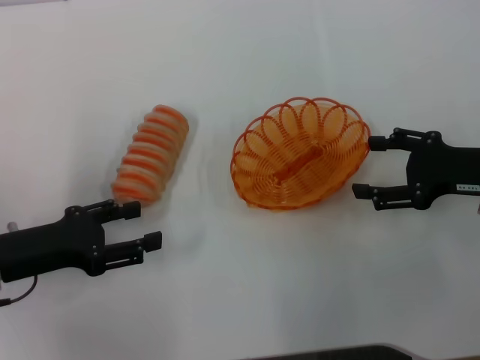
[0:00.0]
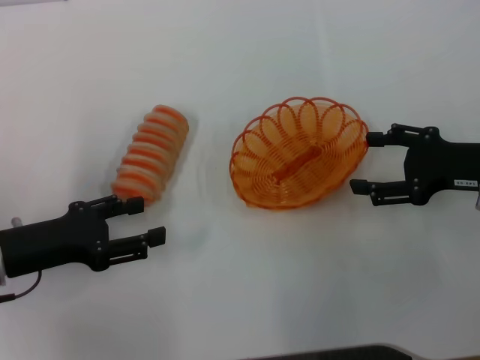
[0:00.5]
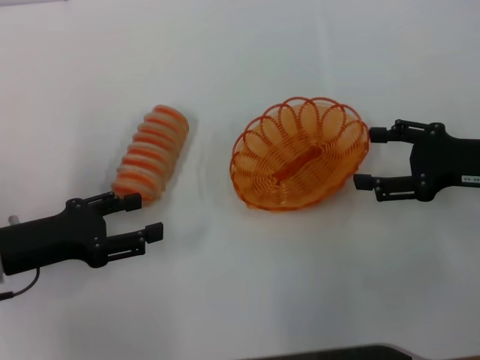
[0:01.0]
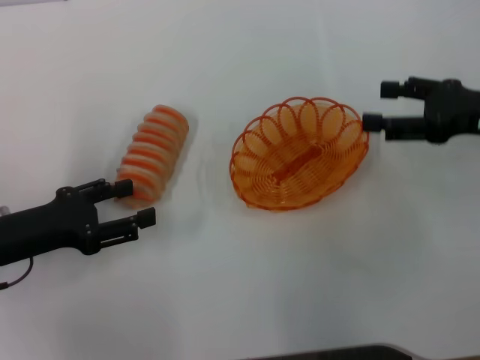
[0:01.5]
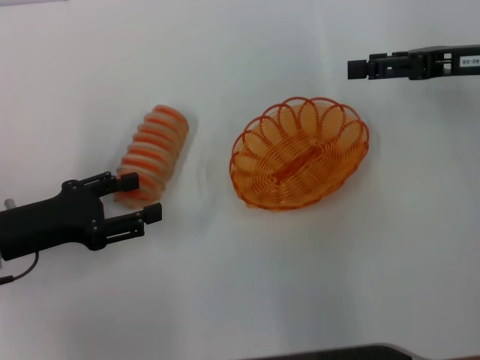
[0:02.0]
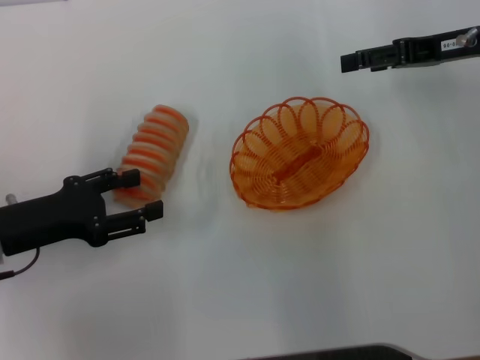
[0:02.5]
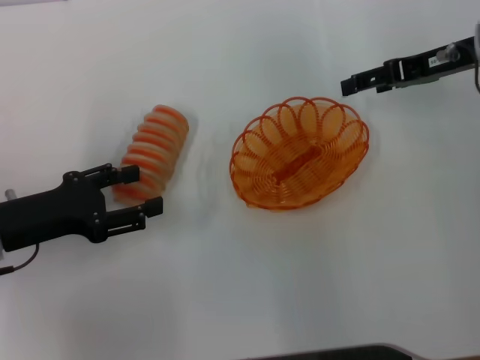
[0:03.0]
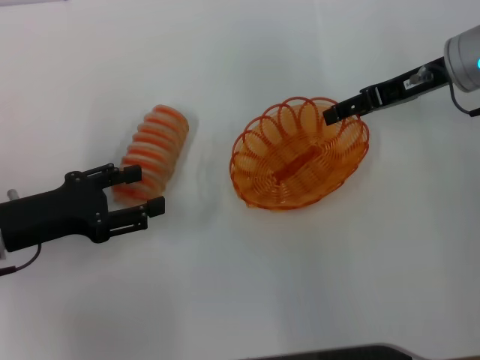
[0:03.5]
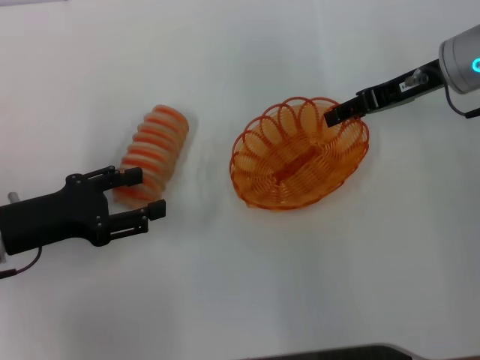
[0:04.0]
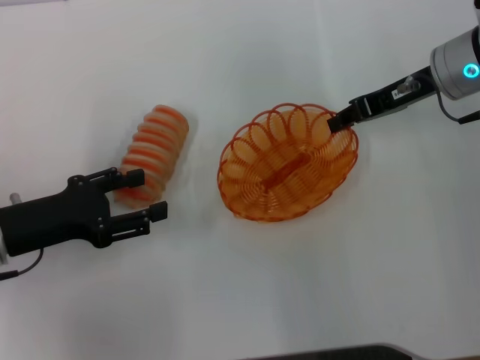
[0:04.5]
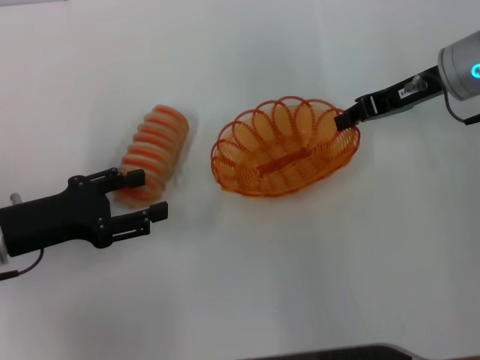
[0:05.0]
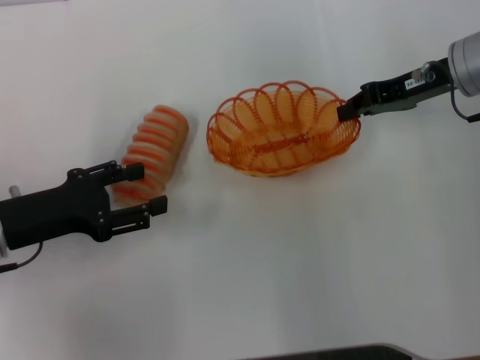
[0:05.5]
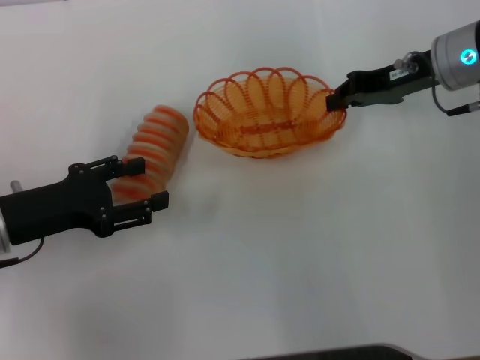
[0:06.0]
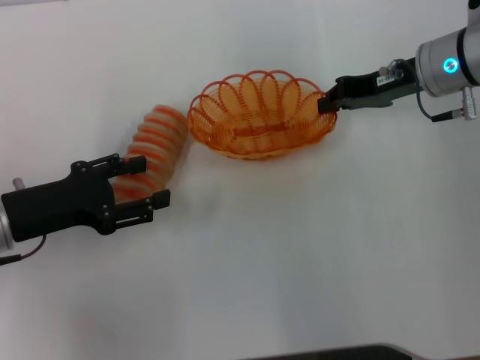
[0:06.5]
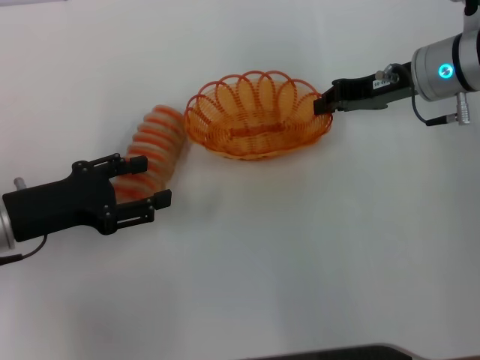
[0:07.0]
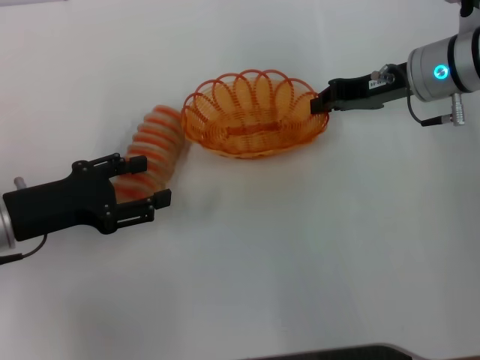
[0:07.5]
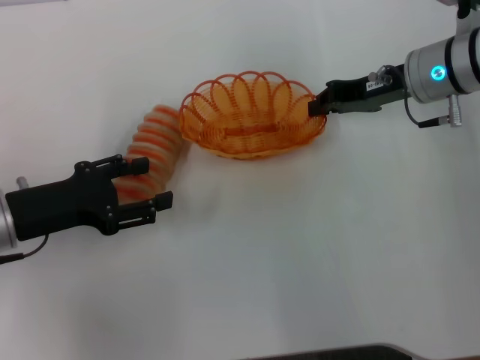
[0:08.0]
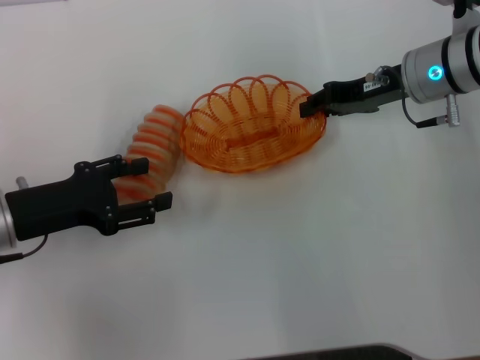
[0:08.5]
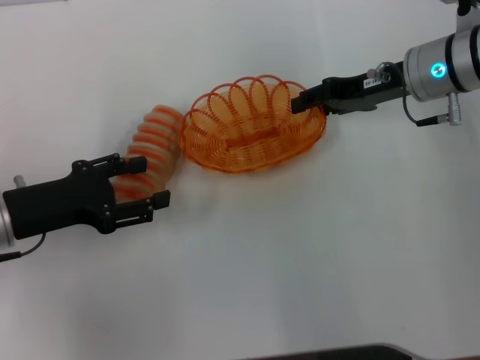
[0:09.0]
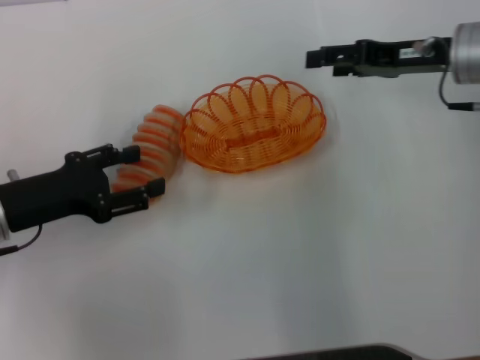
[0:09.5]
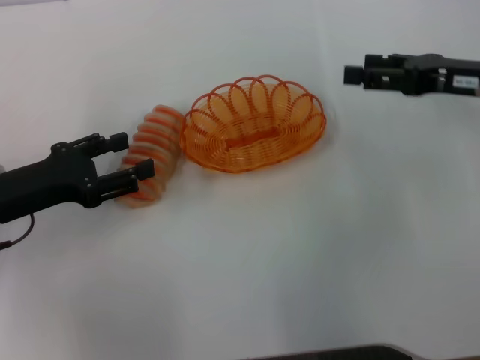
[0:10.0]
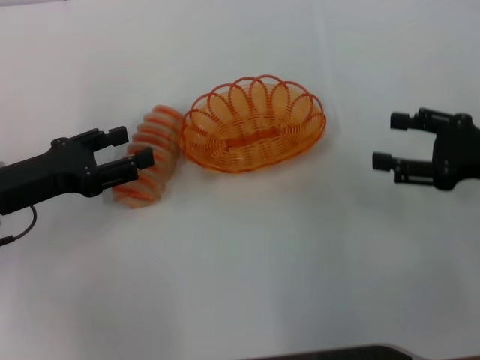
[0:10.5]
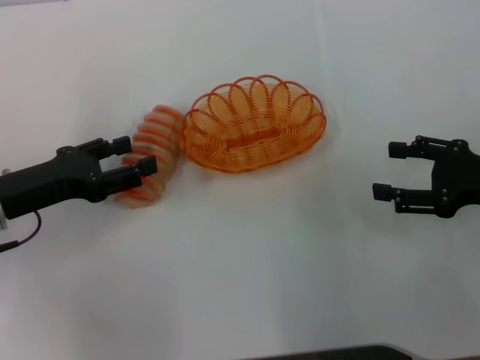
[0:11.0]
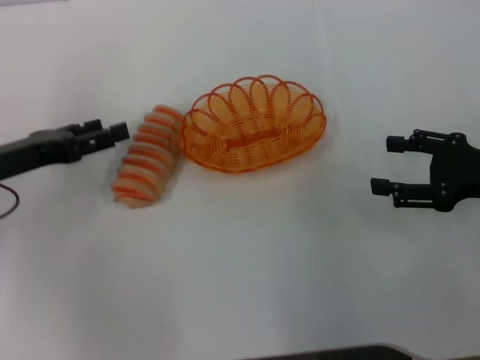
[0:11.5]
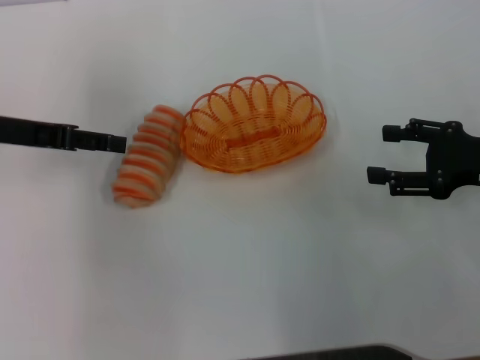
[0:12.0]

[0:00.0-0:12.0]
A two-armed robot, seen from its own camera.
Step, 0:00.0 to 0:05.0: Pick up the basket with the right gripper.
Step, 0:06.0 to 0:09.0: Place the basket in the center of view with the right gripper.
0:00.0 to 0:02.0: The right gripper moves forward and upward, some 10 cm.
0:02.0 to 0:04.0: The right gripper is displaced to the left by about 5 cm.
0:04.0 to 0:06.0: The right gripper closes its fingers.
0:06.0 to 0:08.0: The grippers move only a little.
0:08.0 to 0:10.0: The right gripper travels to the right and backward by approximately 10 cm, and opens its fingers.
0:10.0 to 0:12.0: The left gripper is displaced forward and upward by some 10 cm. Meanwhile the right gripper travels backward by about 5 cm.

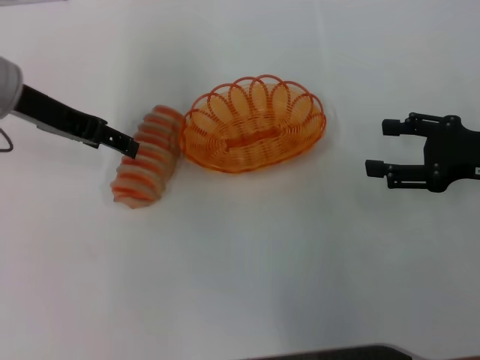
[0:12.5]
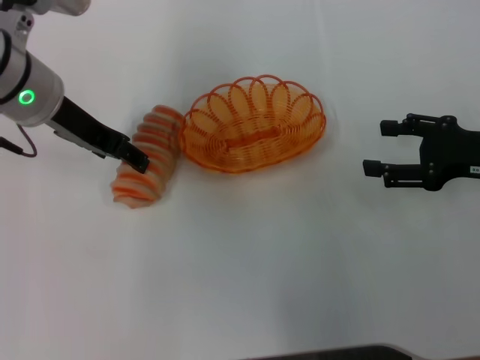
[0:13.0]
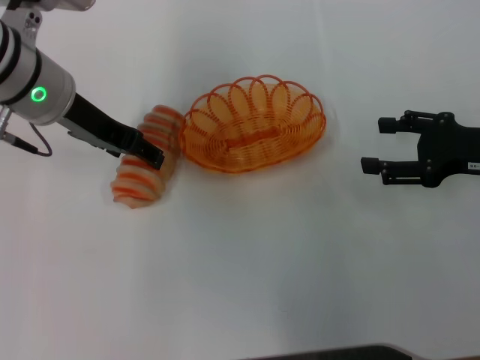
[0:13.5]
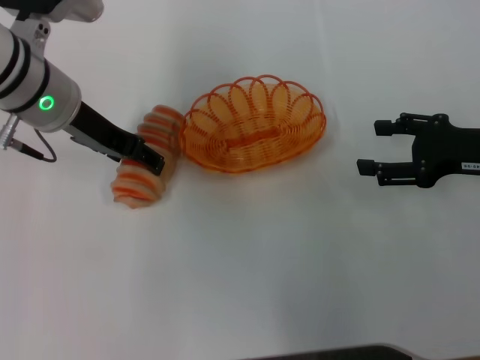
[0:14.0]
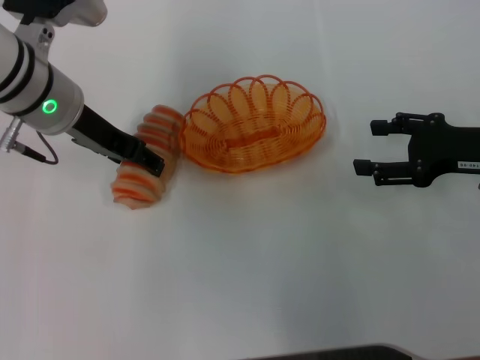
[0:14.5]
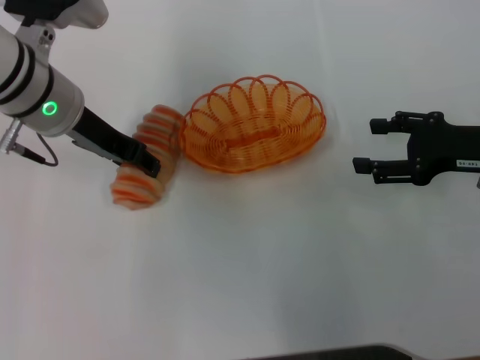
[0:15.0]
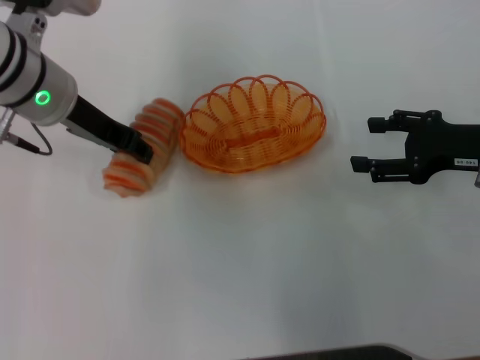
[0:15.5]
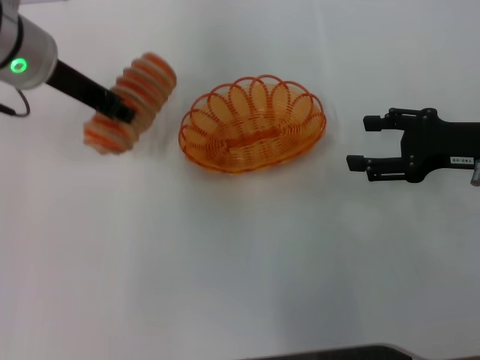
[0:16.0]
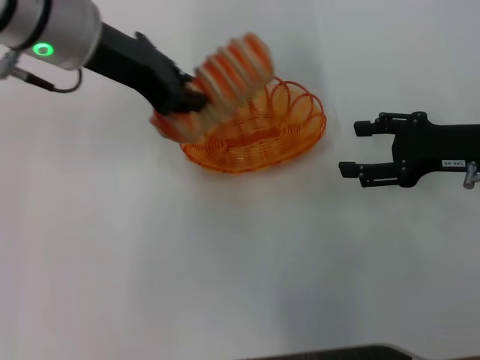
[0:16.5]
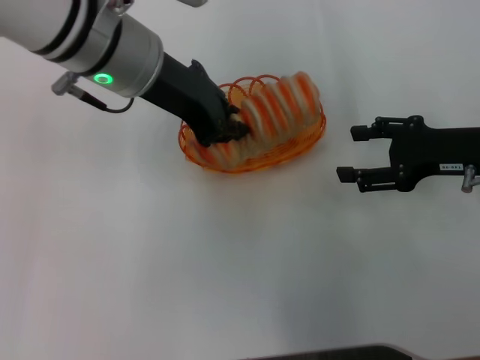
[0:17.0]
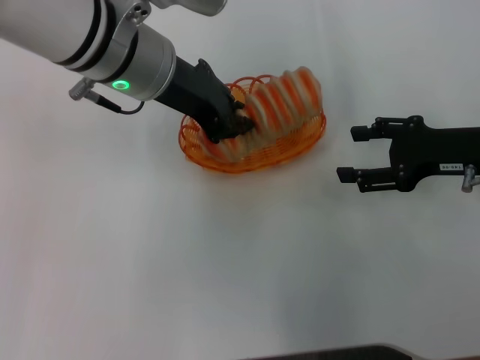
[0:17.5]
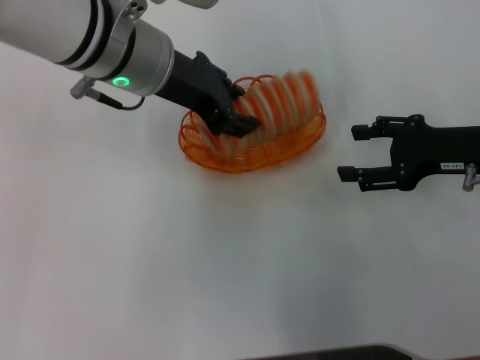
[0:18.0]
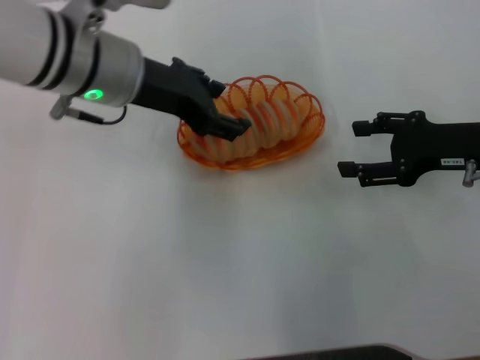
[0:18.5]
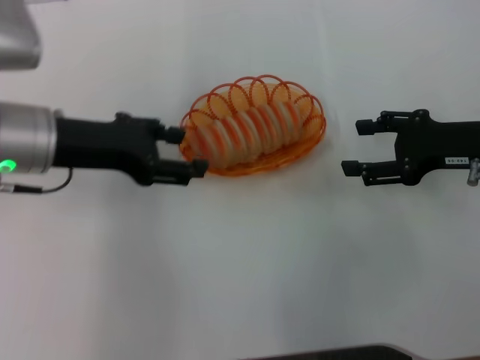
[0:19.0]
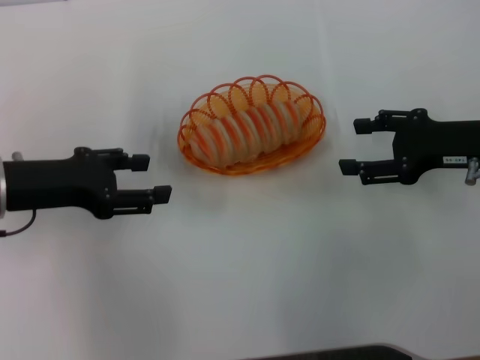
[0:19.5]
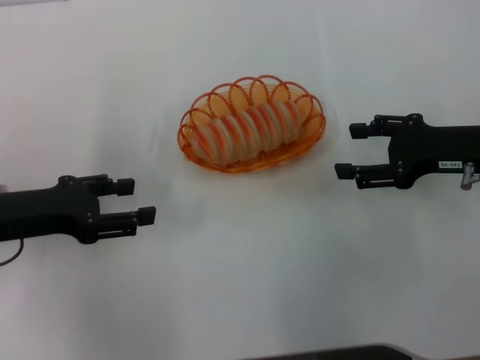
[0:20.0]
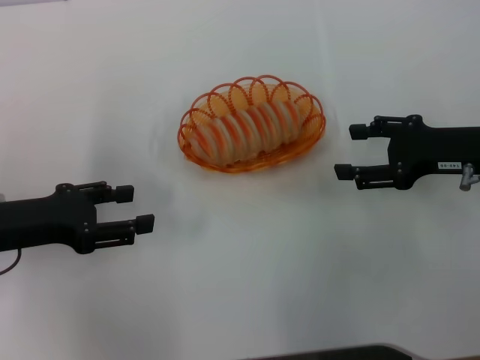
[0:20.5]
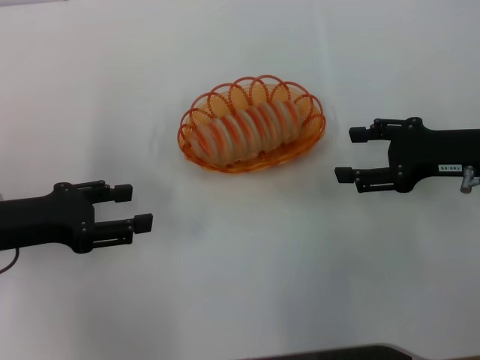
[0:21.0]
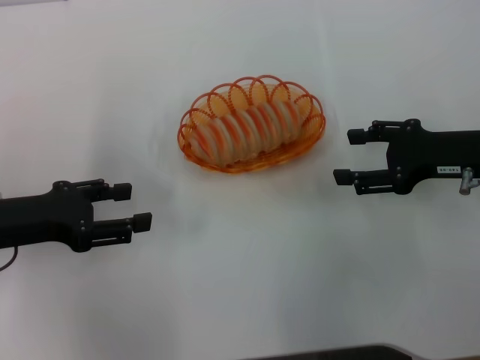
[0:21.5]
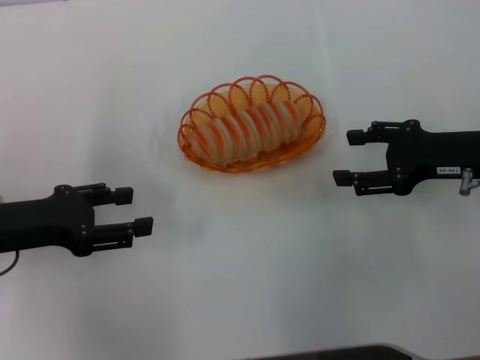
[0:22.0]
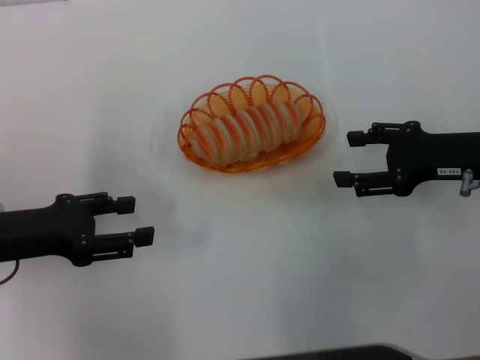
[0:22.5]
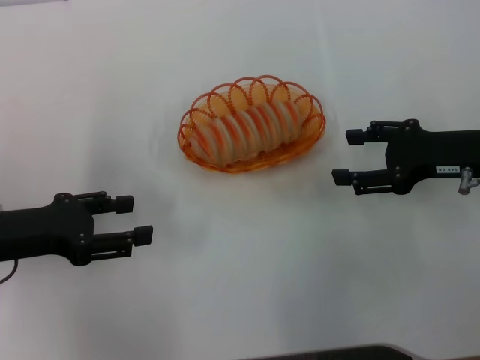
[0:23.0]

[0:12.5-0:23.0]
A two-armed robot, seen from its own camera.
Step, 0:12.5 to 0:15.5: Pick up the long bread with the right gripper.
0:12.5 to 0:14.5: The left gripper is displaced to the right by roughly 5 cm.
0:14.5 to 0:16.5: The left gripper is displaced upward by about 5 cm, and closes.
0:16.5 to 0:19.0: The left gripper shifts roughly 10 cm downward, to the left and backward, and opens.
0:19.0 to 0:21.0: The left gripper shifts roughly 10 cm to the left, backward and downward.
0:21.0 to 0:23.0: Both grippers stay about where they are.

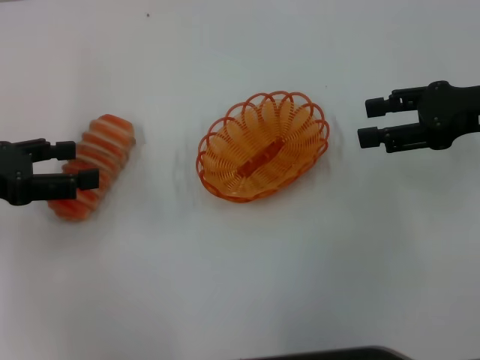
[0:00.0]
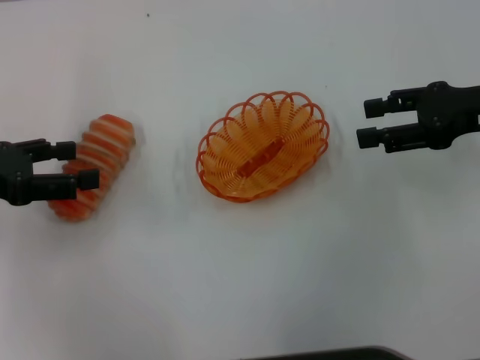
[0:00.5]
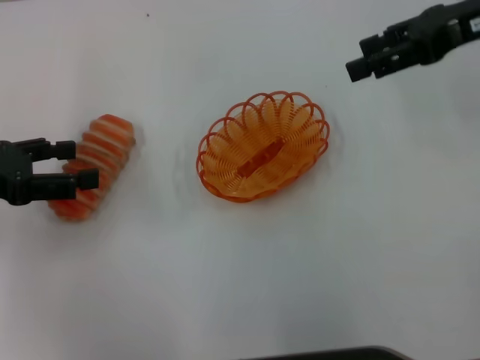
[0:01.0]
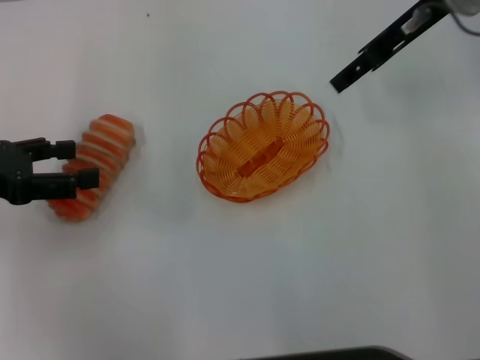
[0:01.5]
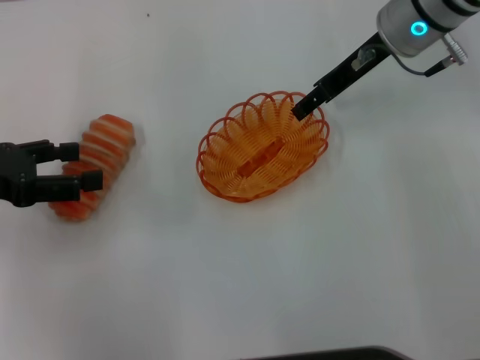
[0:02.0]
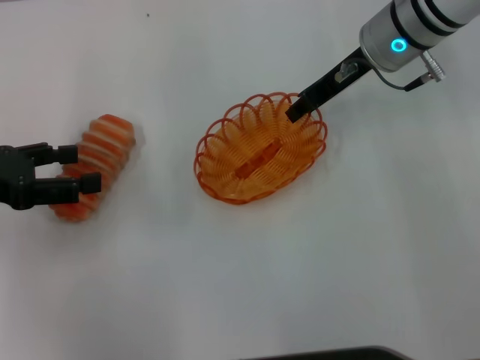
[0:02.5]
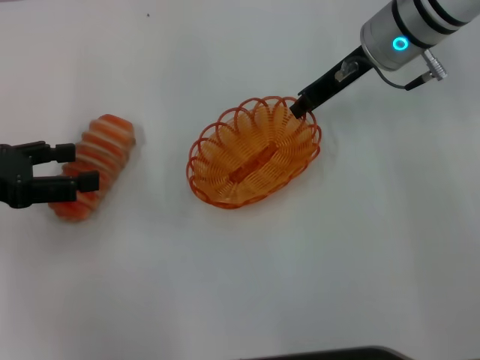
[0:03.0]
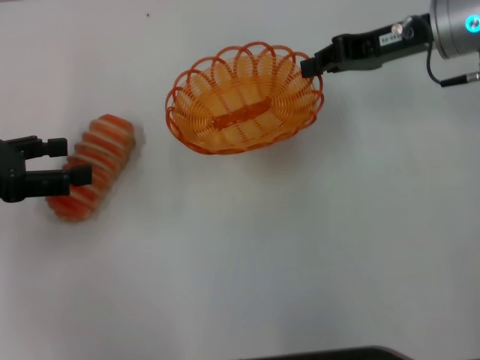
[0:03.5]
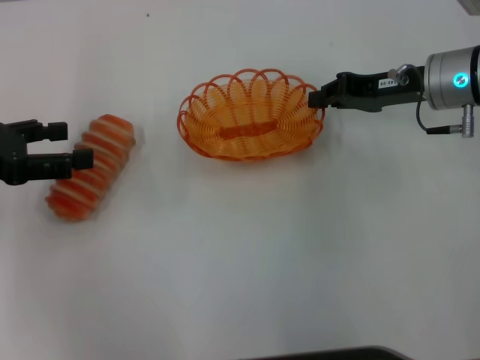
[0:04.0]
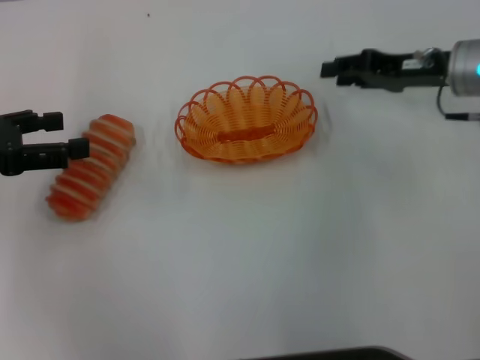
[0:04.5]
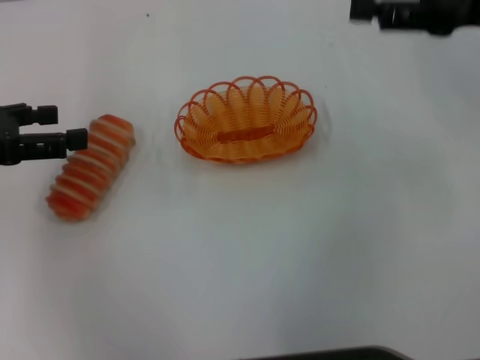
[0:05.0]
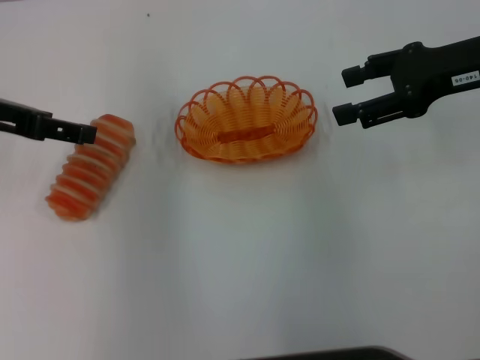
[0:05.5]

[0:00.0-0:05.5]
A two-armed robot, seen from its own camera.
Step, 0:00.0 to 0:03.0: Pick up the basket with the right gripper.
Step, 0:03.5 to 0:05.0: Place the basket in the center of view with the right gripper.
0:00.0 to 0:02.0: The right gripper is displaced to the left and forward by about 15 cm.
0:02.0 to 0:03.5: The right gripper travels to the right by about 5 cm, and closes its fingers.
0:03.5 to 0:05.5: The left gripper shifts approximately 10 cm upward and to the right; the right gripper travels backward by about 5 cm, reaches about 5 cm downward, then returns, and opens.
